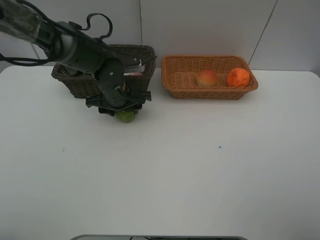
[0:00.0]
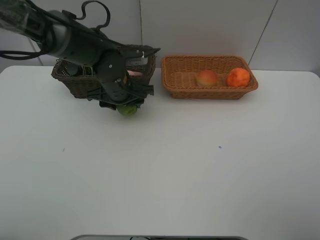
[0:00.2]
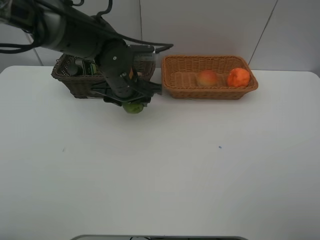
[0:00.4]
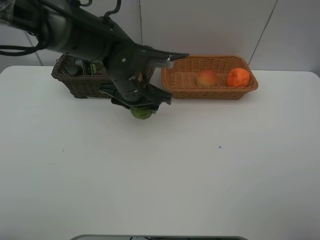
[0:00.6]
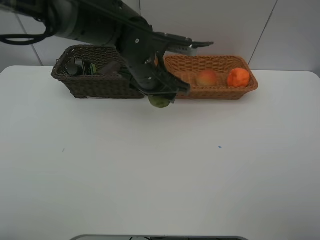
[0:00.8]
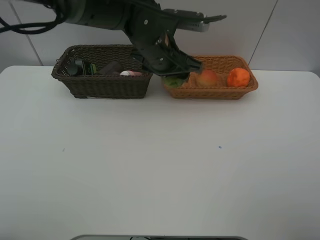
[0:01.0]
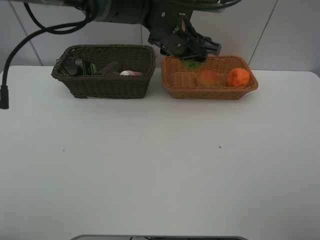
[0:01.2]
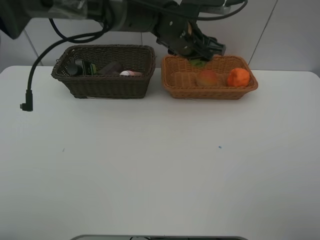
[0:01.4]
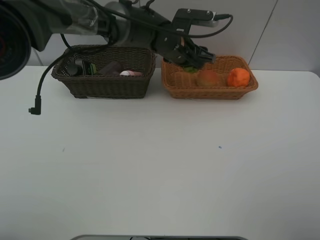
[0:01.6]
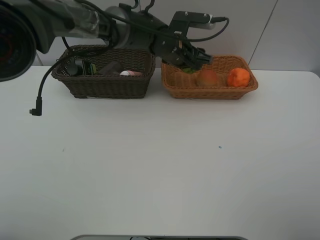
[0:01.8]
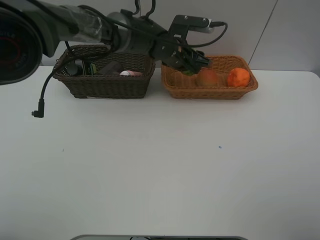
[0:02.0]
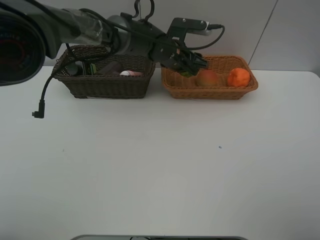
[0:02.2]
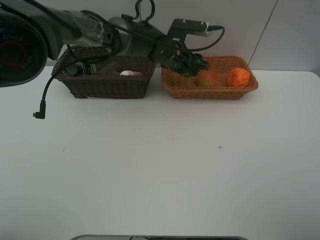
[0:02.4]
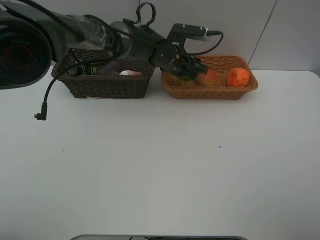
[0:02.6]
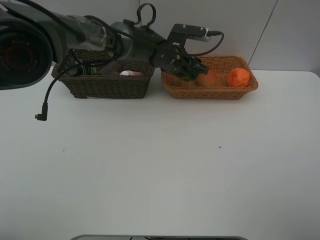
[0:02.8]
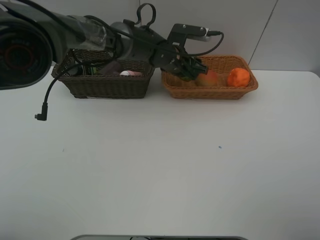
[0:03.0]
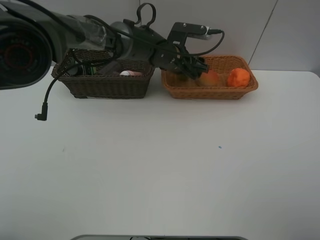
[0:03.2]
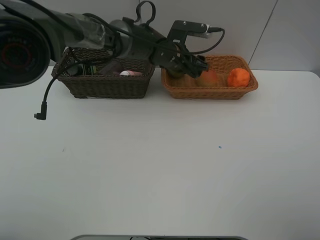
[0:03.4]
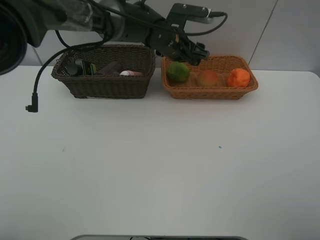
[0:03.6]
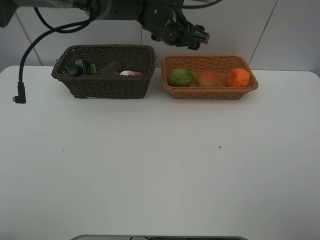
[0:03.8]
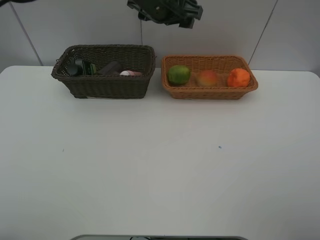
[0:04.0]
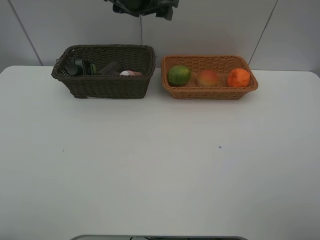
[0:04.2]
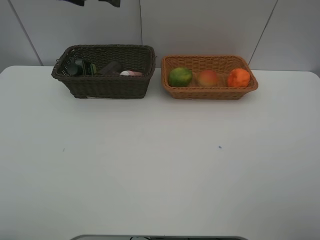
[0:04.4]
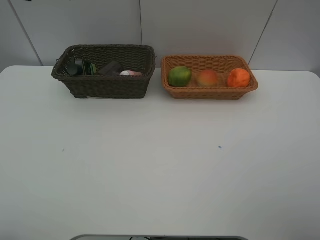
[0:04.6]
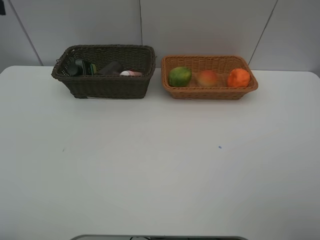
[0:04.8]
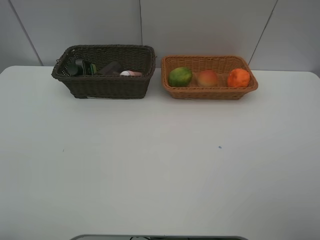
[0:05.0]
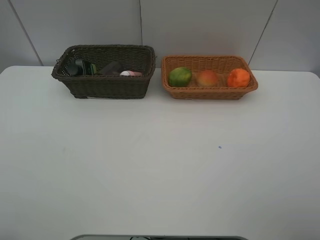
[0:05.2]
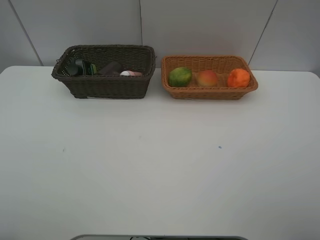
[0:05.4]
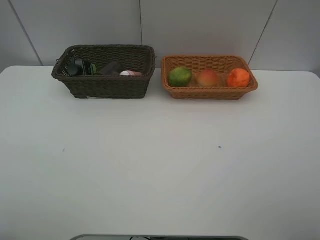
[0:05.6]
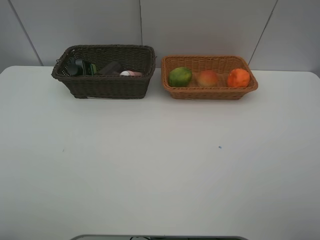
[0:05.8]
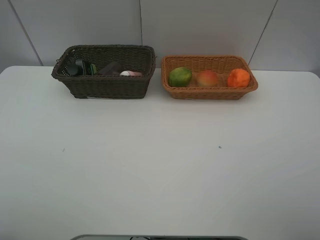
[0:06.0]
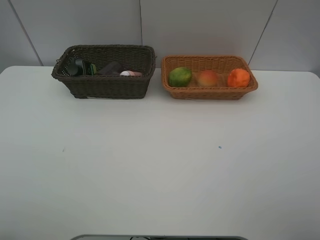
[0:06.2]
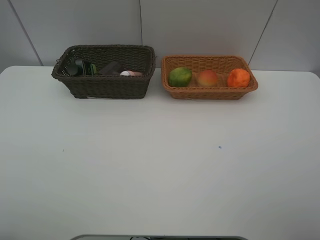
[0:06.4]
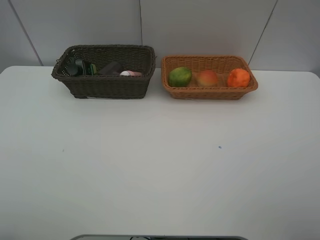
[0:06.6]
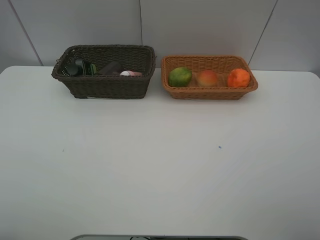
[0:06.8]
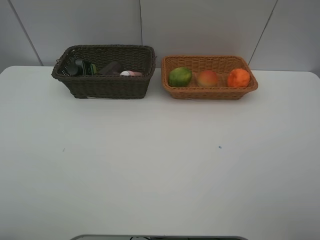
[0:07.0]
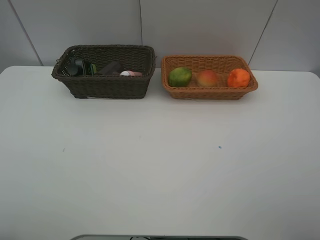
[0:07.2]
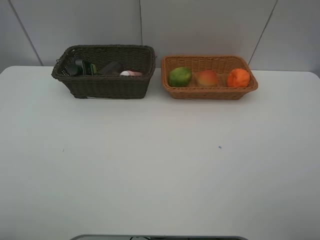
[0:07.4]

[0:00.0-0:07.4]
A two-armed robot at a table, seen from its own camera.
Task of the whole recording: place multiple objects separately in different baskets.
0:00.0 to 0:01.4: The left gripper moves to the right and upward, approximately 15 cm.
0:01.4 to 0:03.0: The left gripper goes some 5 cm downward.
0:03.0 to 0:04.4: The left gripper heads upward and to the left, covering about 30 cm.
